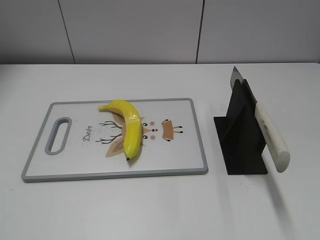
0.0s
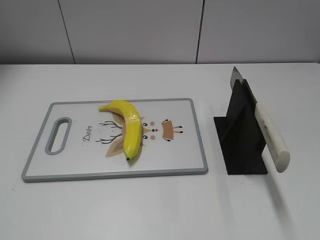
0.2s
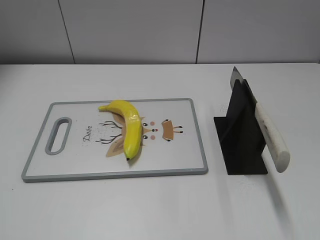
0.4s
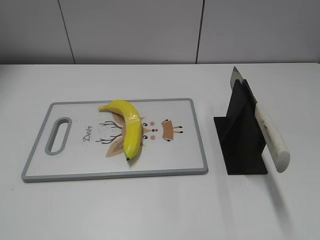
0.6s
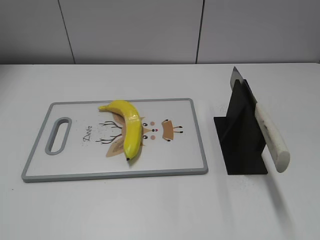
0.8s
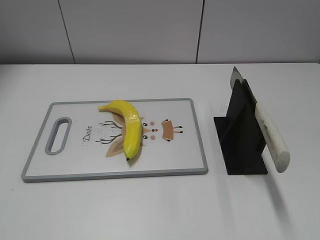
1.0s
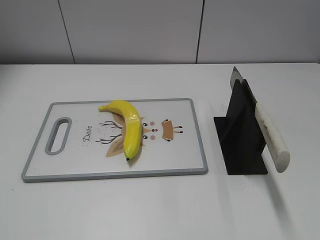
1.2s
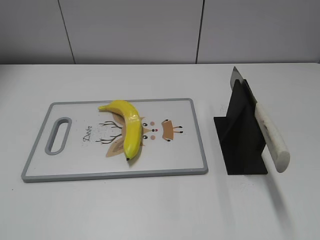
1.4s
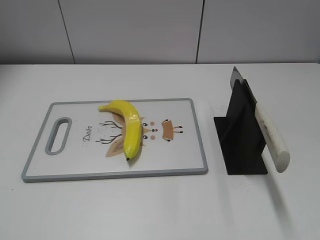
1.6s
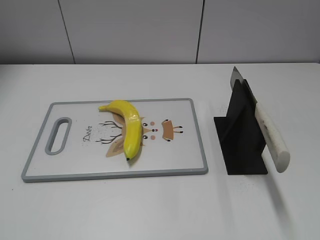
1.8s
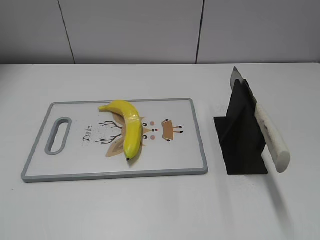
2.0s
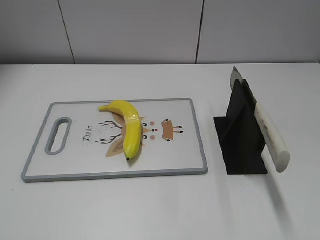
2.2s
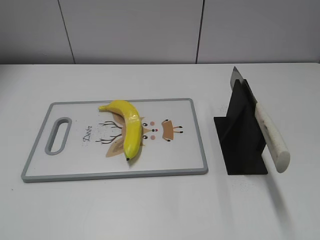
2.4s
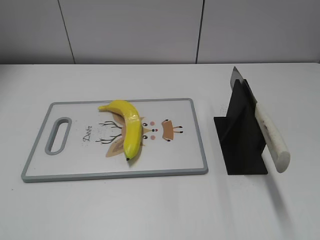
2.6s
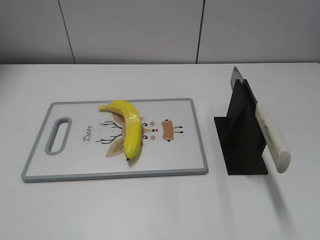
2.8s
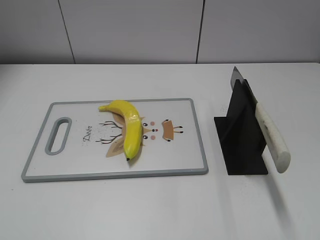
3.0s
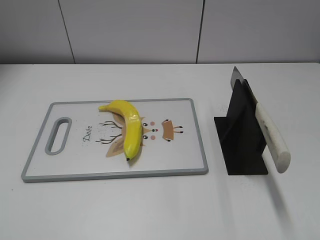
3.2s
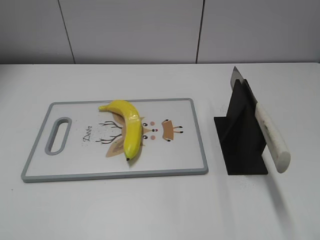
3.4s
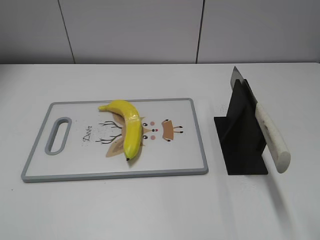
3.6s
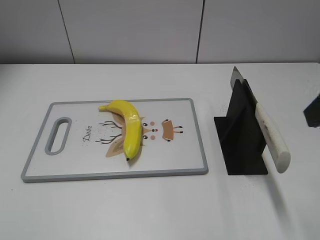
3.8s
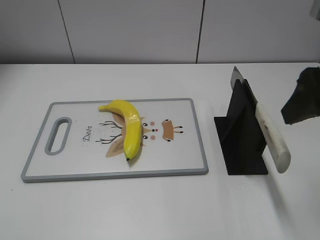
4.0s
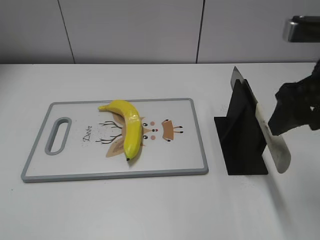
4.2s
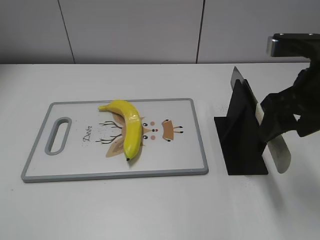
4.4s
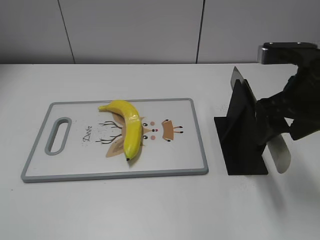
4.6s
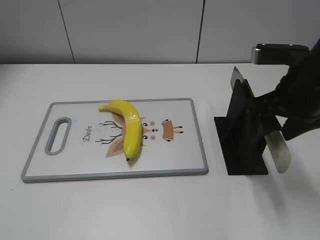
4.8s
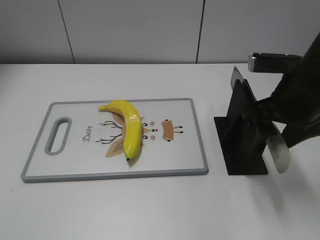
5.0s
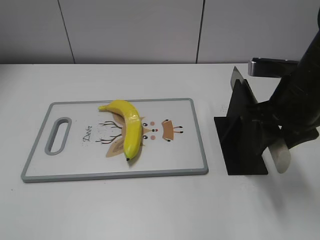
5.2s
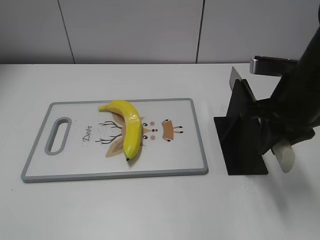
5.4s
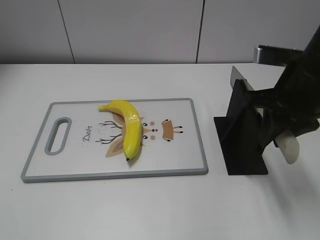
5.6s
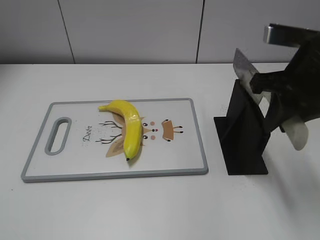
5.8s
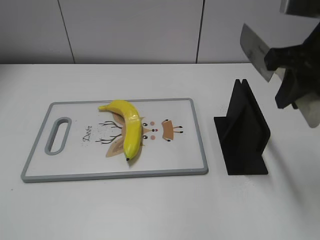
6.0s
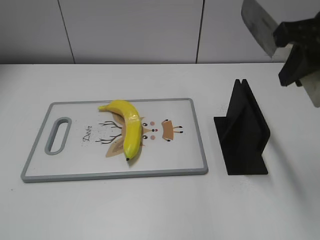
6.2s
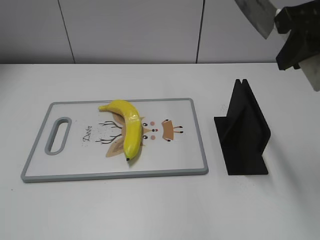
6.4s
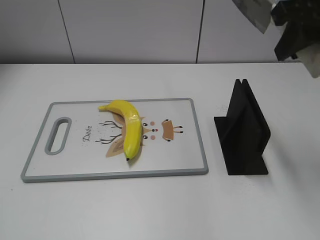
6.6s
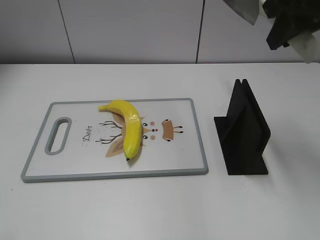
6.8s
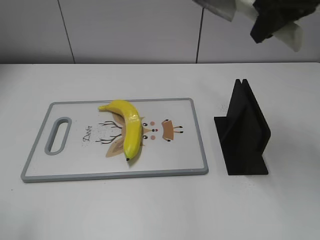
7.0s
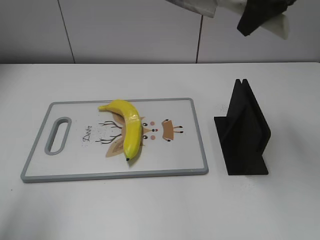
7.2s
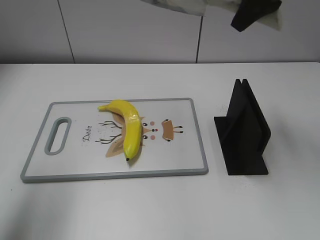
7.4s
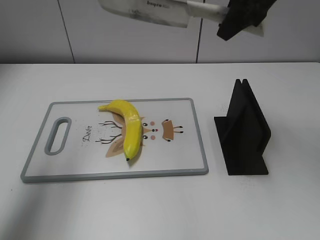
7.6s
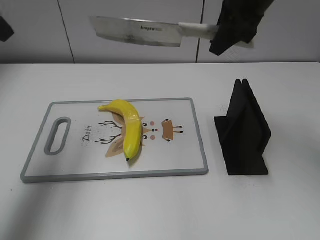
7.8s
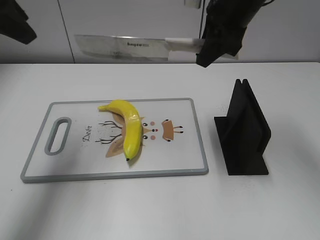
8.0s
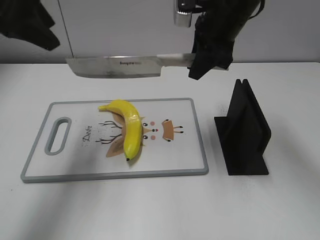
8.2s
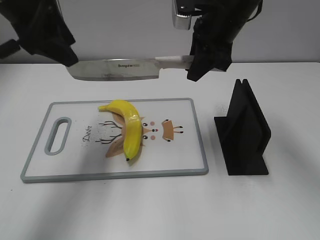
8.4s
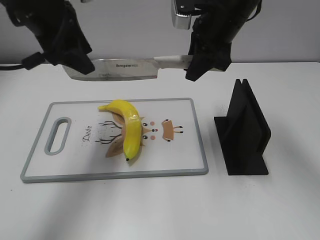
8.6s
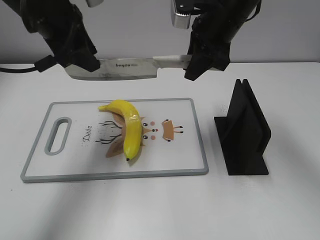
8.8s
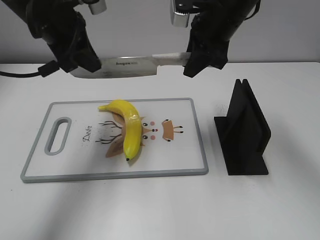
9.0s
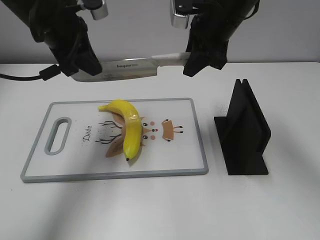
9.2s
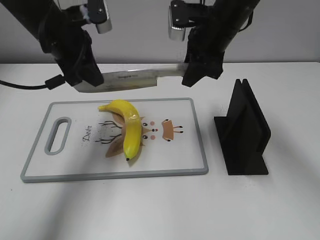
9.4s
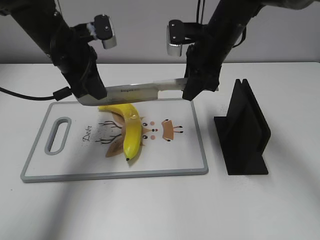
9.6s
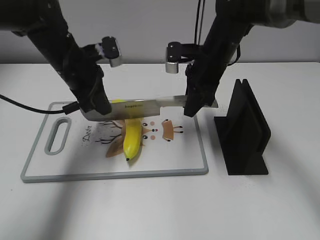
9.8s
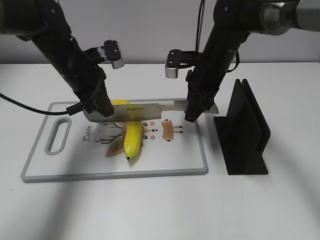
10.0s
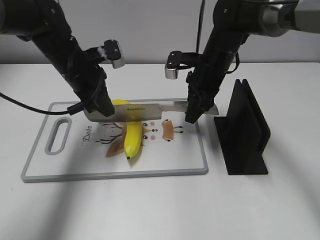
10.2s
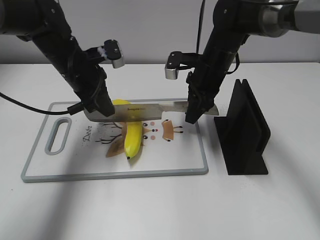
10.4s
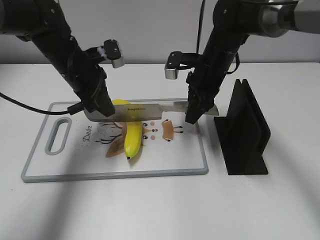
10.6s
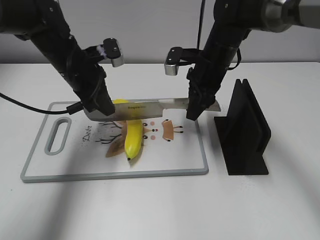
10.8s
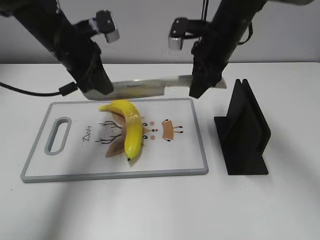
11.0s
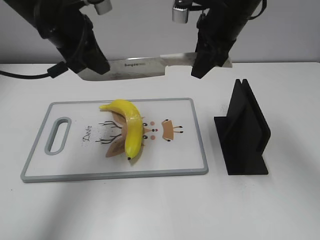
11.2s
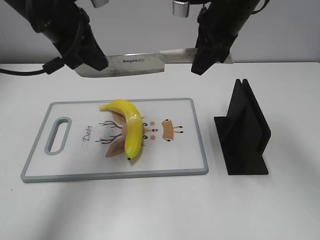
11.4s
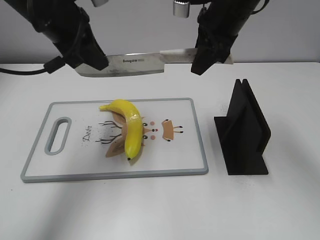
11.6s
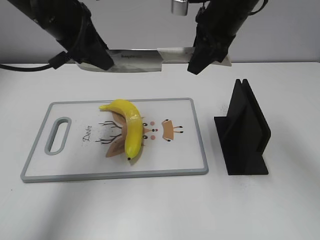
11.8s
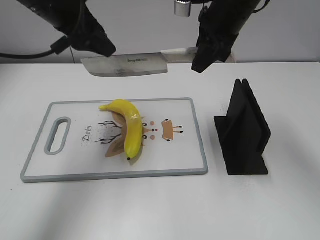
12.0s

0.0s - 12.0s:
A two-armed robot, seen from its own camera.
Task of the whole recording: cut plastic banana.
Step, 0.0s - 6.6s: Grab the knife handle with your right hand.
Step, 6.8s - 11.0s: Hold the blade with your left hand.
3.0s - 4.4s: The right gripper moves forward and to the left, about 15 cm.
4.4s - 6.0s: The right gripper shifts roughly 5 cm upward, and closes up.
6.0s - 7.6s: The right gripper is displaced forward and to the left by roughly 15 cm. The left gripper goes approximately 30 cm forward.
7.6s - 9.0s: The left gripper goes about 15 cm to the right, downward and forward, and closes its fingers. Meanwhile the right gripper travels downward by approximately 5 cm.
9.0s - 10.4s: The two grippers go roughly 10 cm downward.
10.4s - 12.0s: Both grippers travel together upward, about 15 cm. The left gripper opens up.

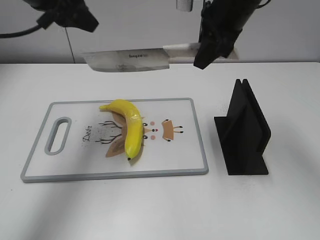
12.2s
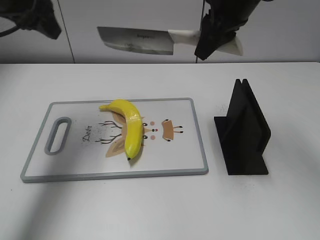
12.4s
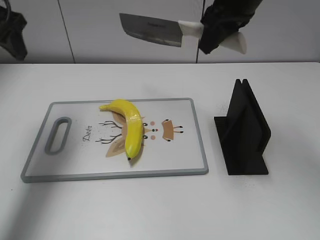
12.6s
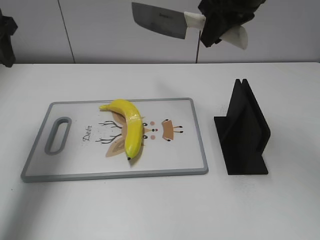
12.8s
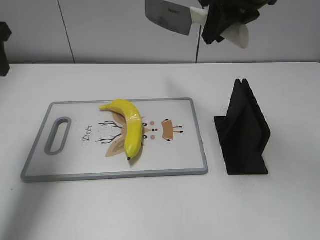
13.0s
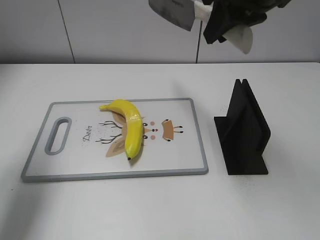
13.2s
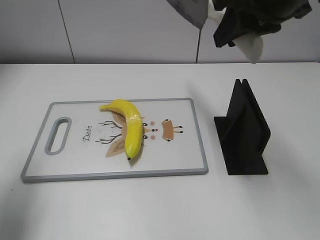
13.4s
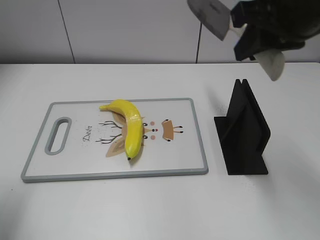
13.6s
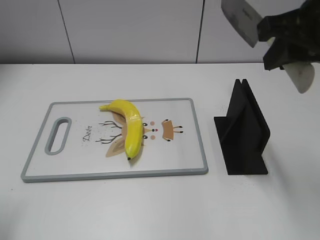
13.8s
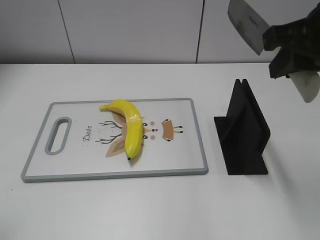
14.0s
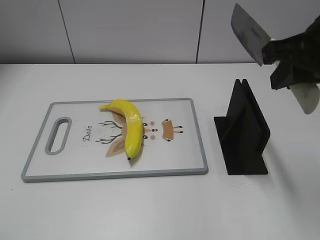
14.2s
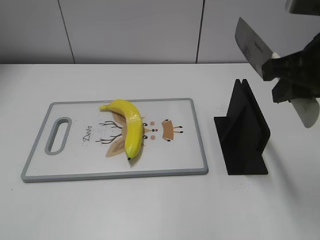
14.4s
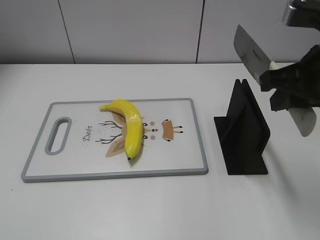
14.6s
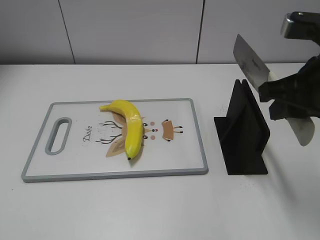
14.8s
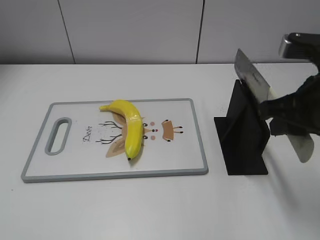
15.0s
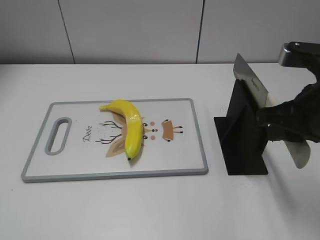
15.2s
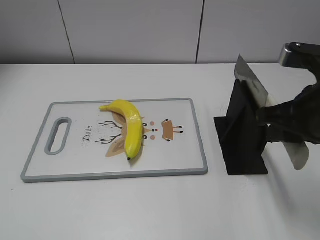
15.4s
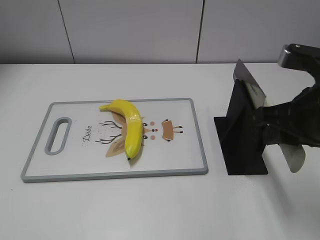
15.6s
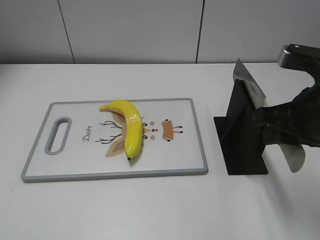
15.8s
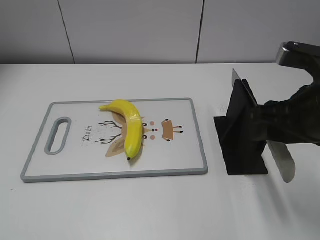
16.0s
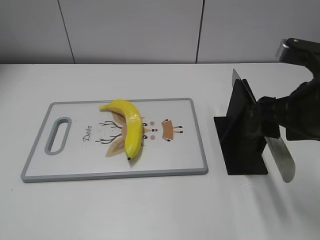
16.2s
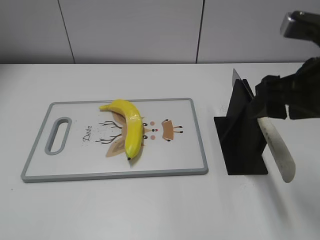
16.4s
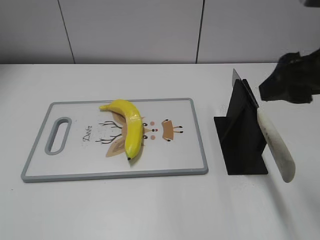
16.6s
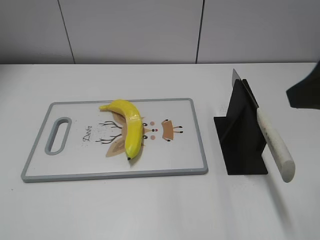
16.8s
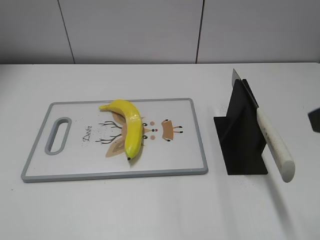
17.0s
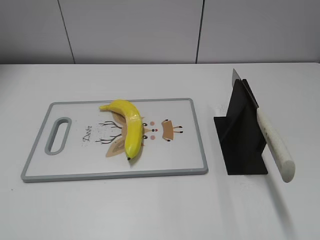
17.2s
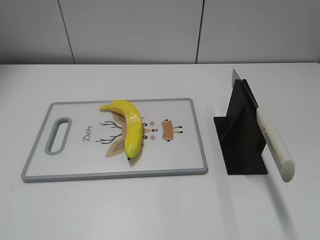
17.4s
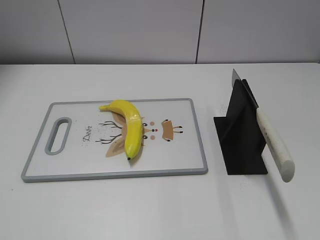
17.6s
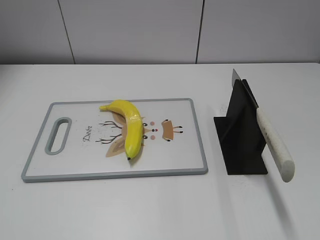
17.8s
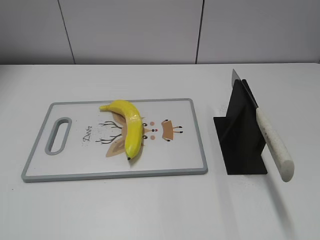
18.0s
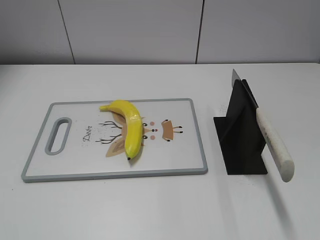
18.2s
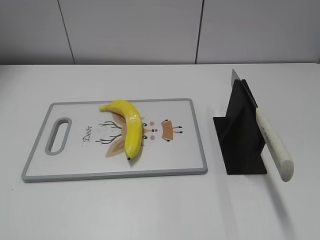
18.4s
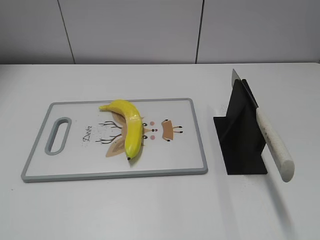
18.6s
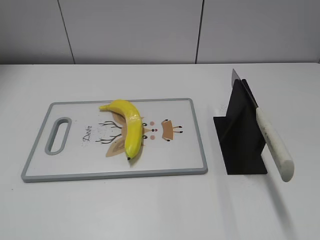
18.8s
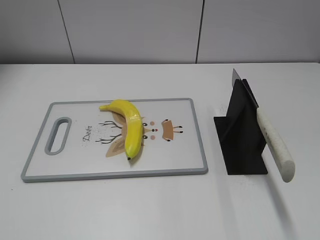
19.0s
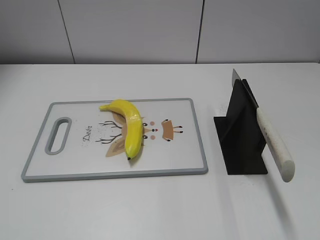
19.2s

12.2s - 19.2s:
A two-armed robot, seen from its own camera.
Task of the whole recording: cut plastic banana.
Step, 12.6s - 14.2s: Secure the blade with your left hand.
Step, 14.4s - 19.2s: Place the knife on the storage rack with your right hand.
12.2s - 13.6s: The left gripper shifts some 25 cm backward, to the left and downward. Meanwhile the right gripper heads backward and to the right, covering approximately 15 cm.
13.6s - 15.0s: The right gripper shifts roughly 10 cm downward. The left gripper shifts approximately 20 cm backward.
15.0s - 16.4s: The right gripper opens.
16.4s - 17.8s: The right gripper moves backward and to the right, about 20 cm.

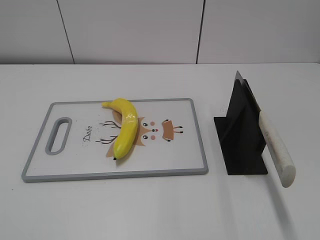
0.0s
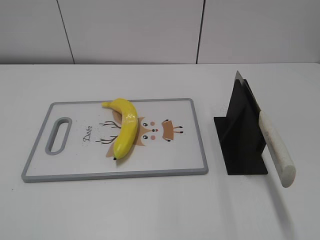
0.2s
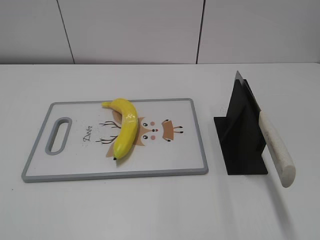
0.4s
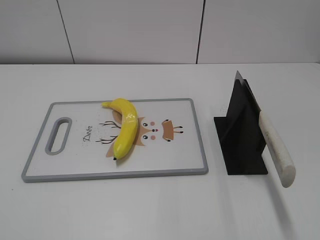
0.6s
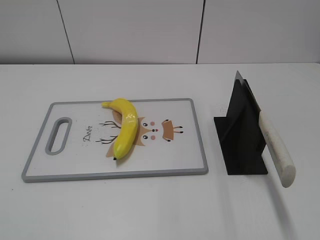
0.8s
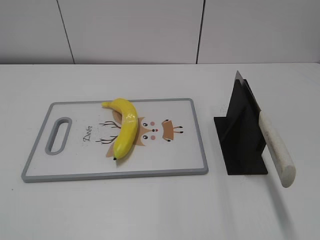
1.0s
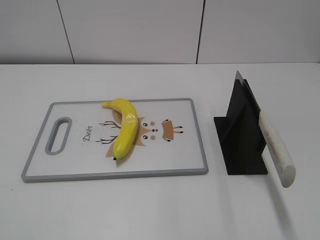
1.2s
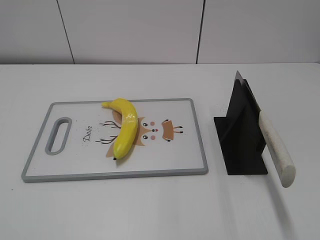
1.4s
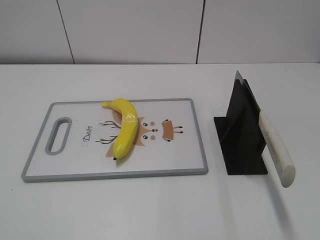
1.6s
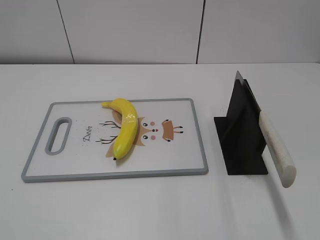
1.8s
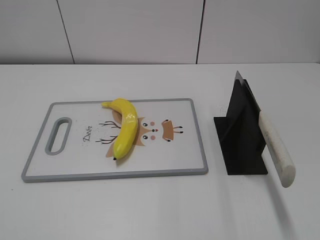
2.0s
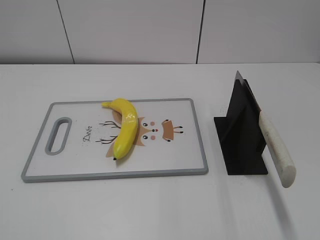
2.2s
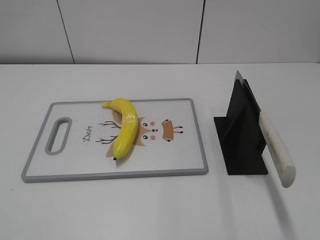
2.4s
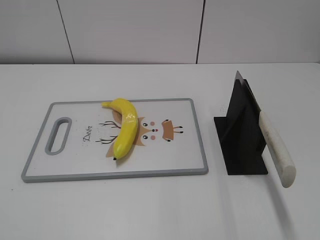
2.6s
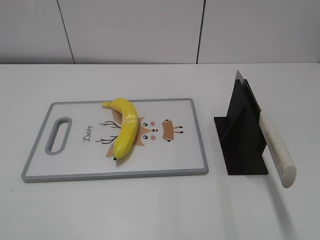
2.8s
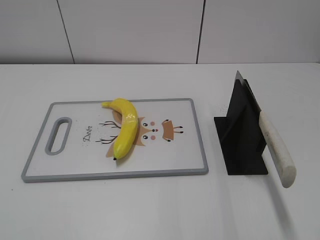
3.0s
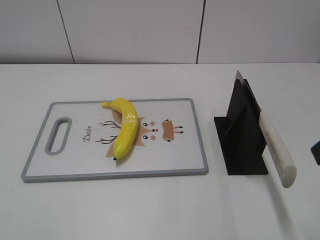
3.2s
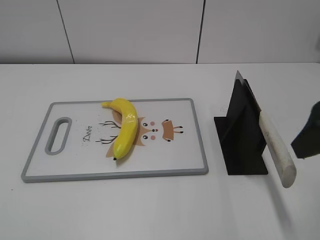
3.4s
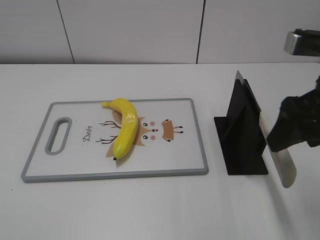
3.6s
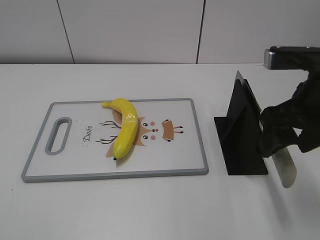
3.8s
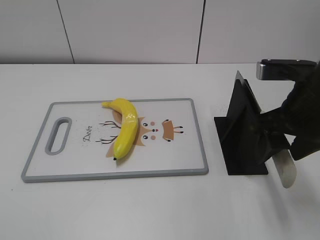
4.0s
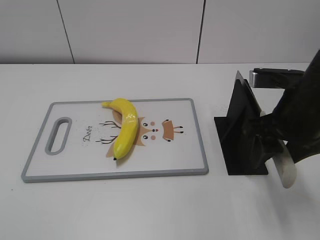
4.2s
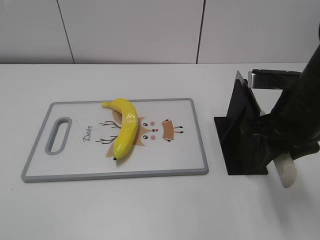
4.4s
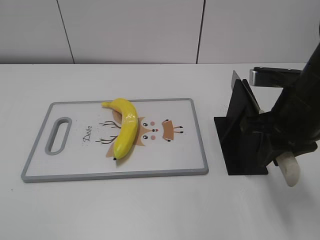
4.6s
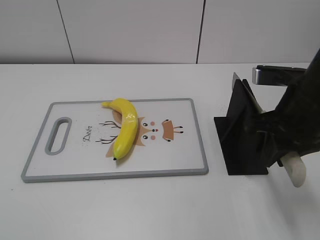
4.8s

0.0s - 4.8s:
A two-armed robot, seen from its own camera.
Task of the whole recording: cut plastic banana.
3.2s - 4.8s: The right gripper heads forward, downward and to the left, covering approximately 15 cm, and closes its fingers.
